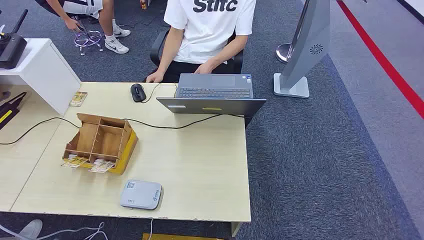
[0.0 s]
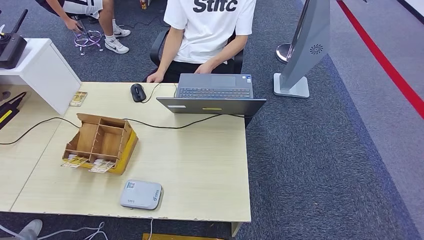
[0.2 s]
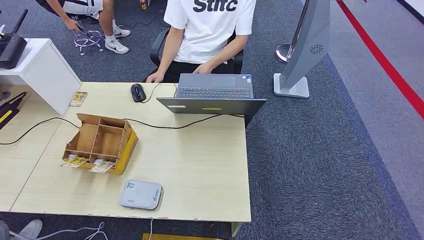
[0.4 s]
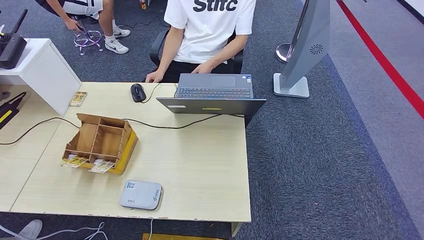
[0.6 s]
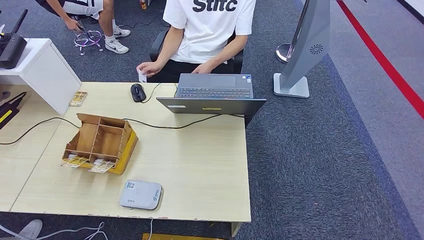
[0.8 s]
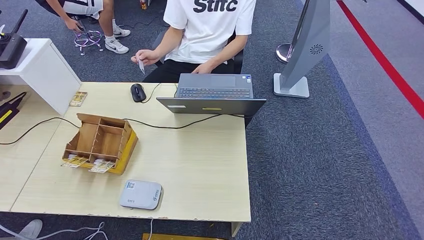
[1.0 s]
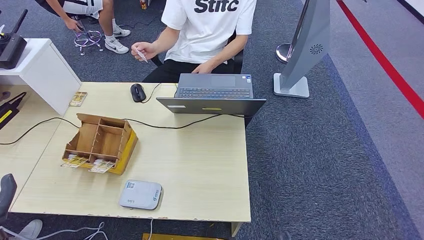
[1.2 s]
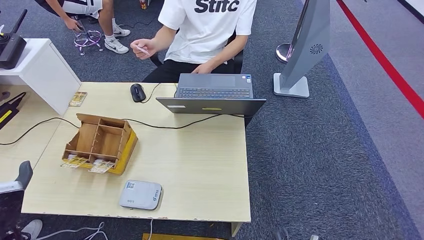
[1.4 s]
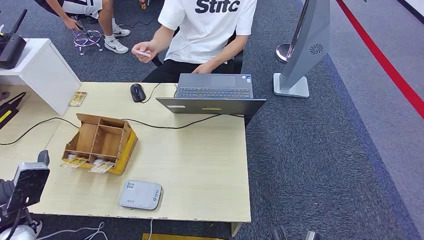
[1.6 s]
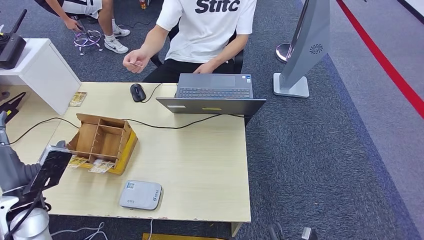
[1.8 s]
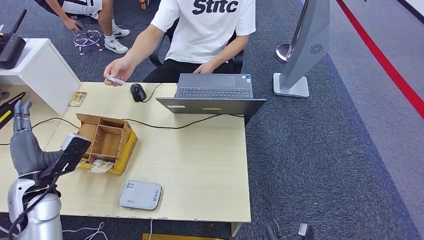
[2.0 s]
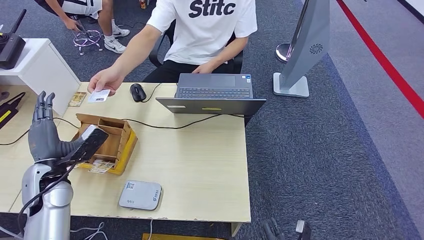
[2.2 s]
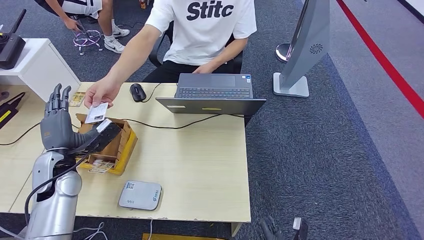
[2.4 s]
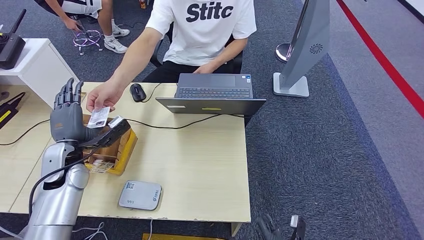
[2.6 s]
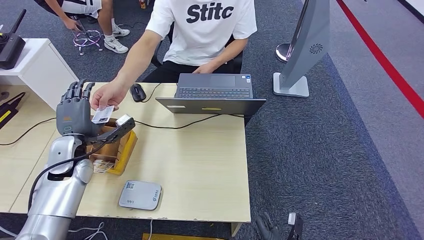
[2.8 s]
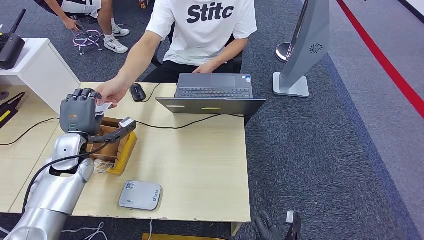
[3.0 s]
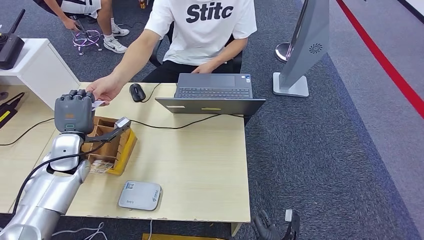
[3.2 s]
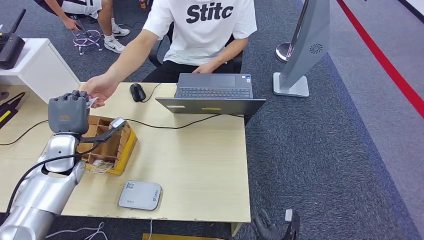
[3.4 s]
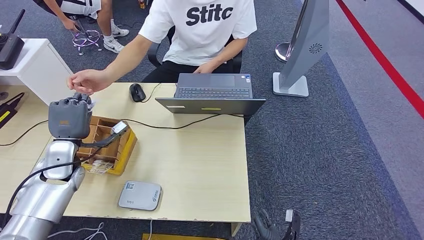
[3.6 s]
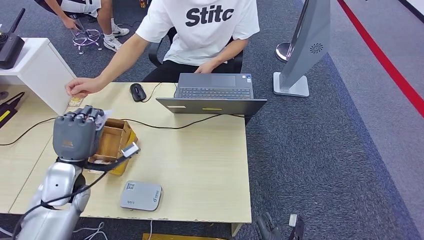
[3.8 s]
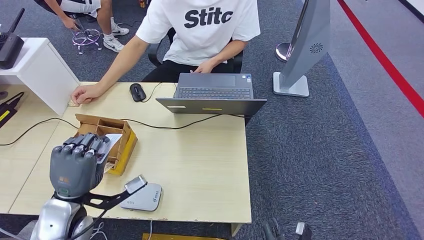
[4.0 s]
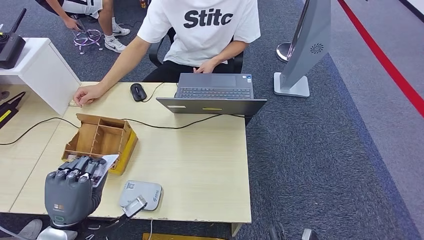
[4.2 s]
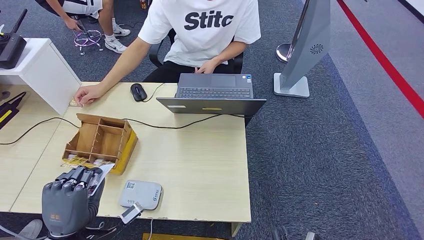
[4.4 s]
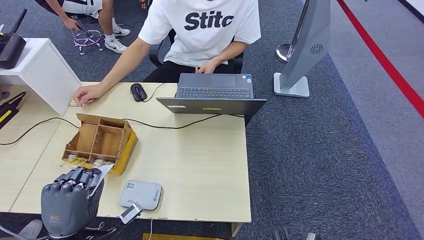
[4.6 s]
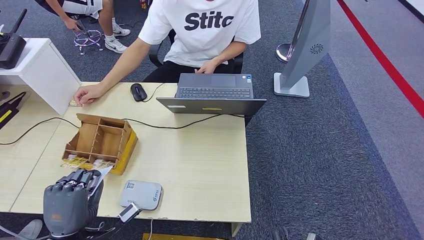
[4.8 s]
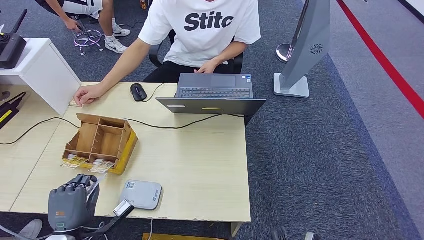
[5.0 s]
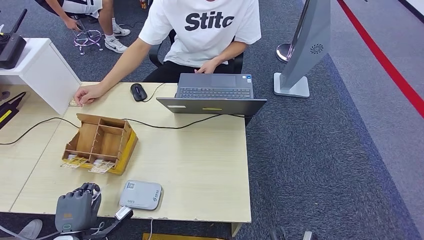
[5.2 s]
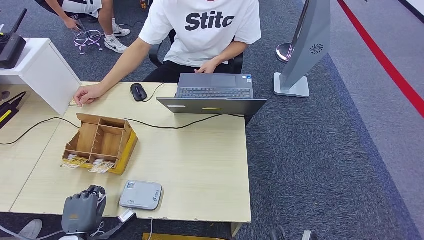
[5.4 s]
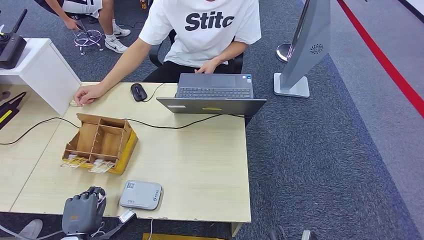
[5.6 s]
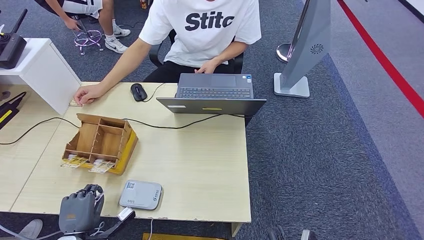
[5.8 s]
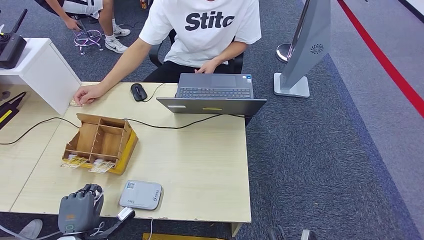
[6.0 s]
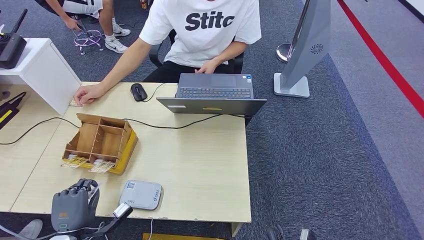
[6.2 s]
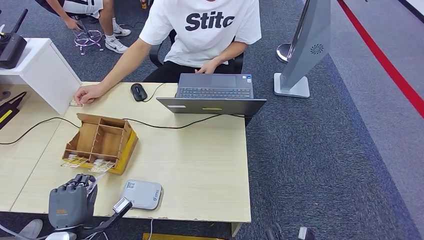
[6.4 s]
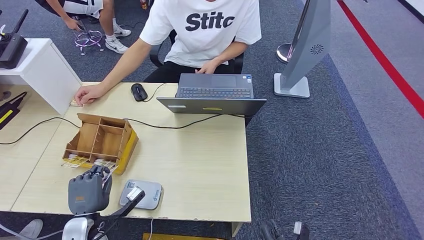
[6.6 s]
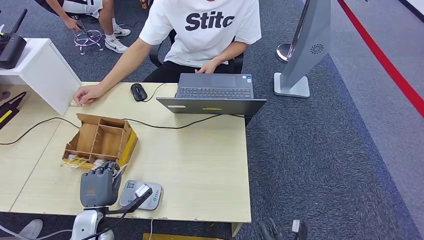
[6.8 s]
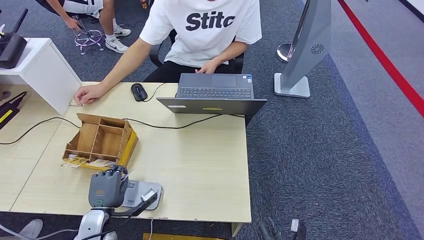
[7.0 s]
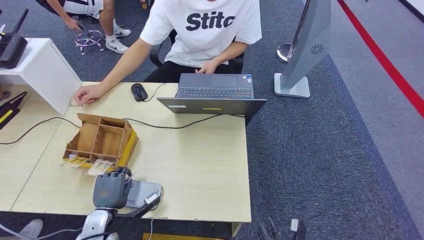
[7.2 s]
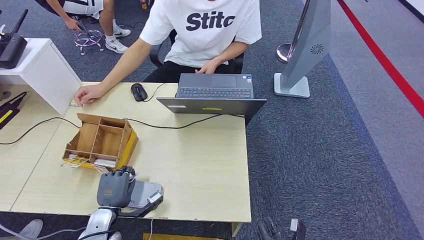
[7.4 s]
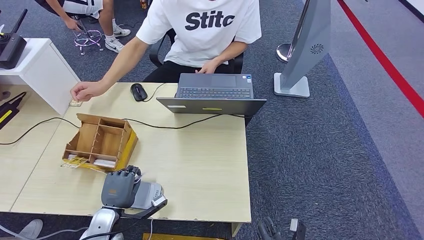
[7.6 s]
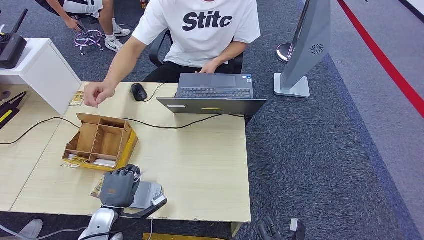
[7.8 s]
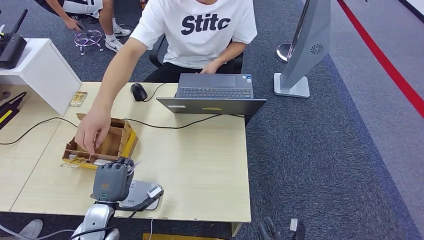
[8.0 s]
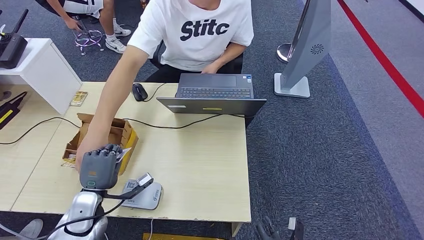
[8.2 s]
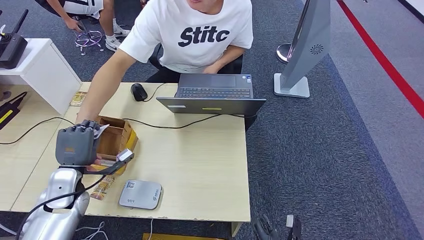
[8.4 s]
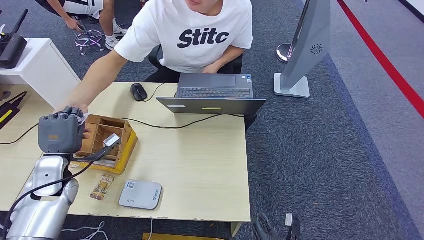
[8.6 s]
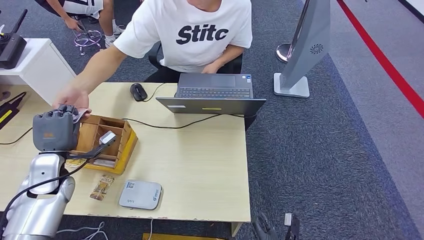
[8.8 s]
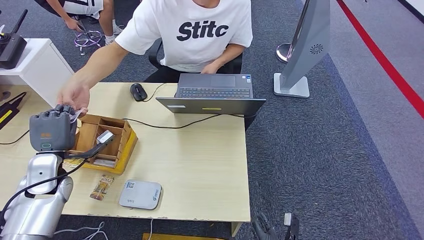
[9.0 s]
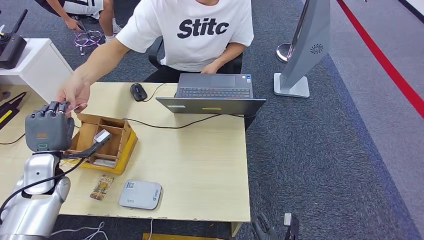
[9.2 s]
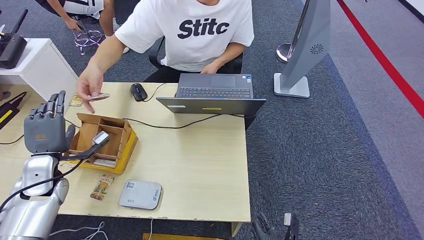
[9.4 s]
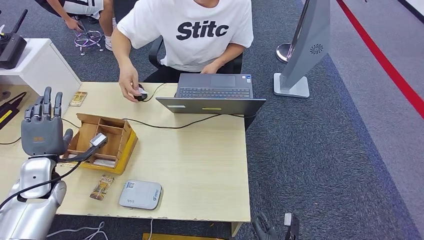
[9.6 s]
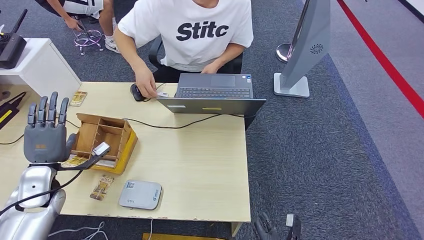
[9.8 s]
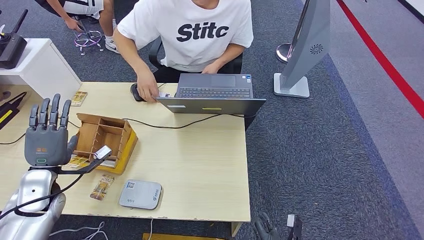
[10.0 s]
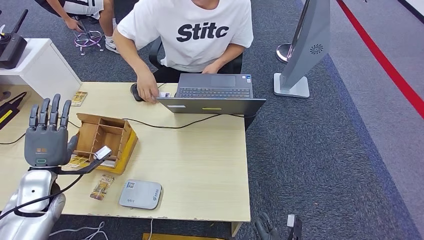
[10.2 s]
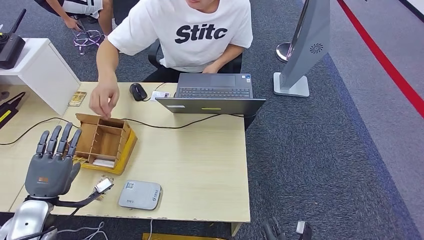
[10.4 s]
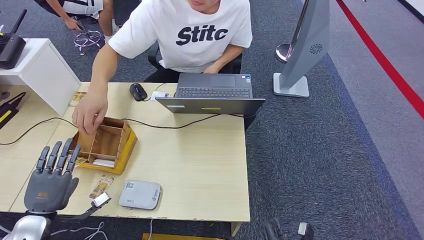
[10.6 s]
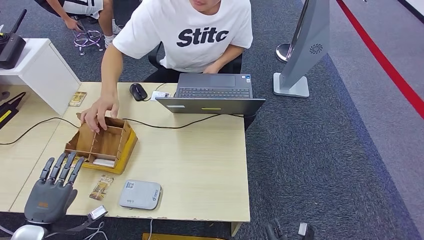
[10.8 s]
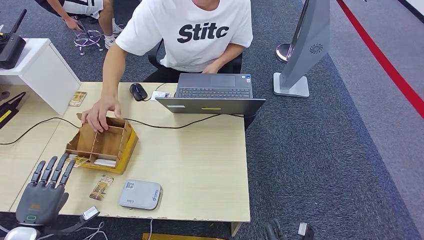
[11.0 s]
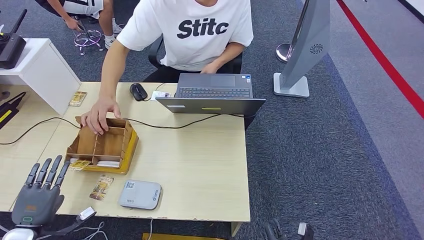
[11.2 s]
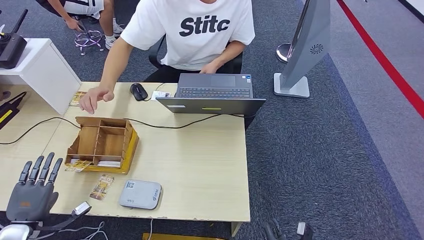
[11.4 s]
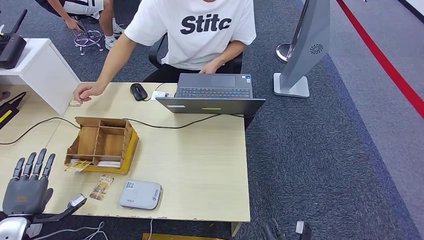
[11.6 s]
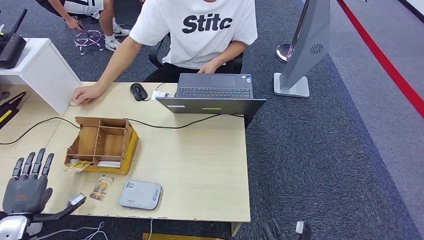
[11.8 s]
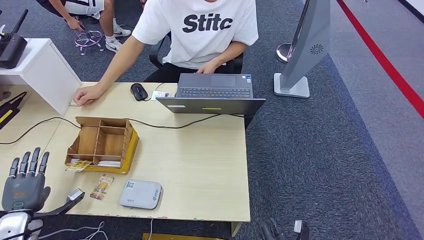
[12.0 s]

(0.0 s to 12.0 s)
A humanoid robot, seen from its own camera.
Step, 0.0 s - 4.8 s: Take the ID card from the person's hand.
Step, 5.2 s - 7.4 s: Place the ID card on the card reader.
Step, 7.6 s - 11.0 s: Hand the ID card to the person.
1.6 s - 3.0 s: The left hand travels forward by approximately 15 cm.
3.0 s - 4.4 s: The left hand heads backward, covering about 20 cm.
4.4 s - 6.0 s: The left hand is displaced downward and to the left by approximately 15 cm.
6.0 s - 7.6 s: The left hand moves to the right and forward, approximately 10 cm.
7.6 s - 9.0 s: The left hand shifts roughly 20 cm upward, to the left and forward.
9.0 s - 10.4 s: The left hand shifts roughly 5 cm backward.
10.4 s - 12.0 s: The left hand goes approximately 15 cm to the left, downward and backward.

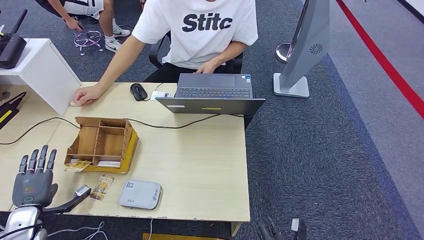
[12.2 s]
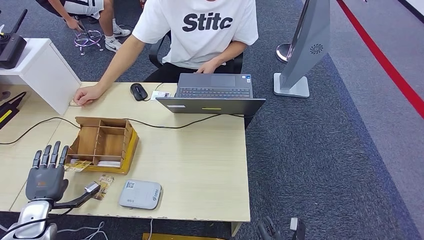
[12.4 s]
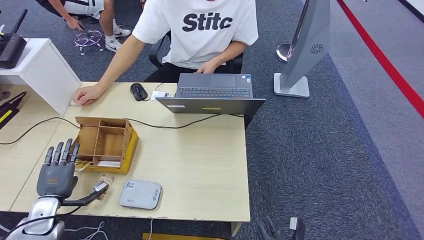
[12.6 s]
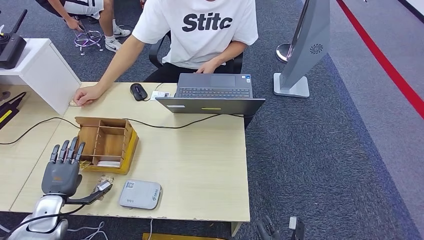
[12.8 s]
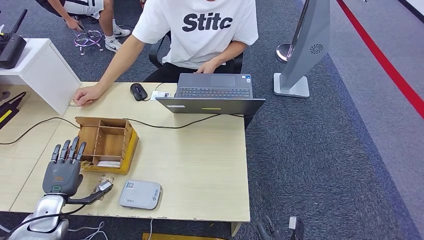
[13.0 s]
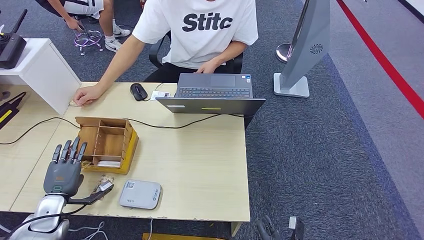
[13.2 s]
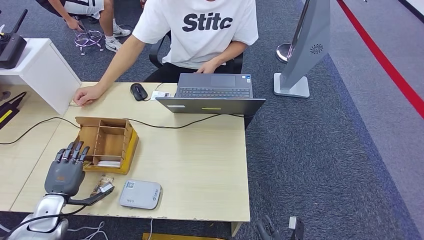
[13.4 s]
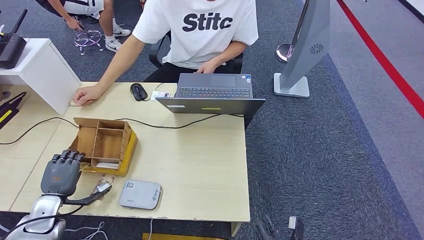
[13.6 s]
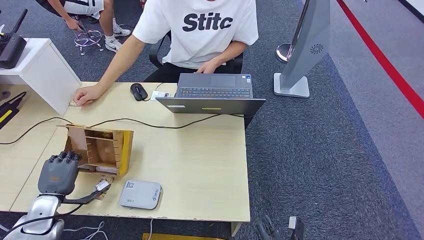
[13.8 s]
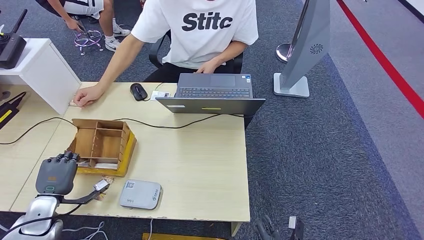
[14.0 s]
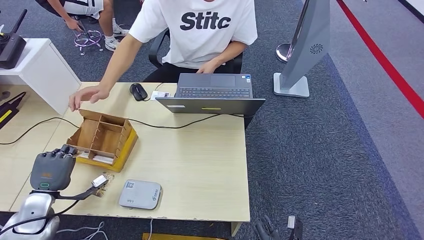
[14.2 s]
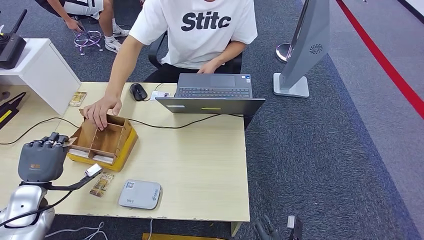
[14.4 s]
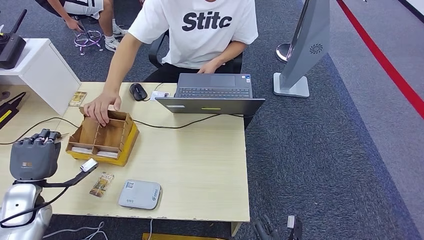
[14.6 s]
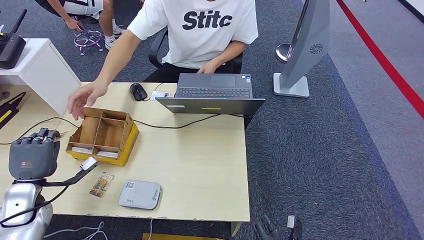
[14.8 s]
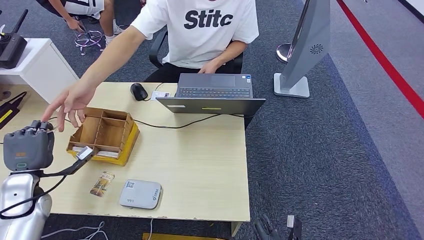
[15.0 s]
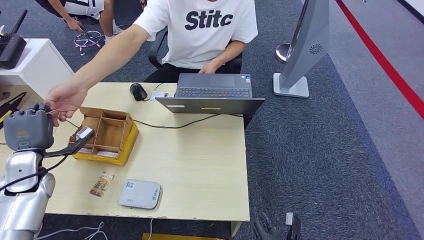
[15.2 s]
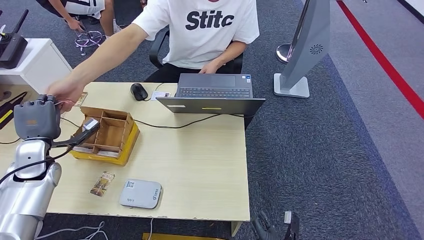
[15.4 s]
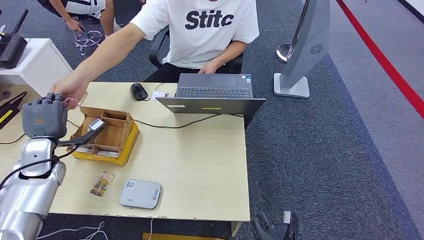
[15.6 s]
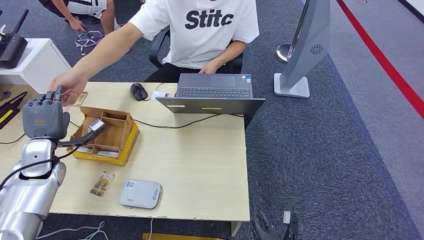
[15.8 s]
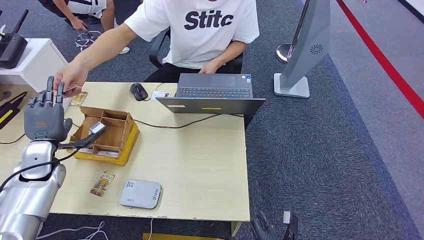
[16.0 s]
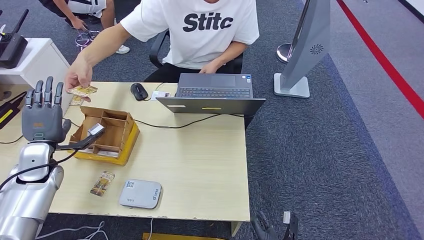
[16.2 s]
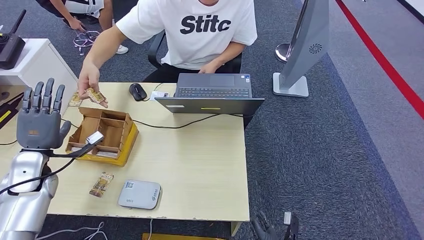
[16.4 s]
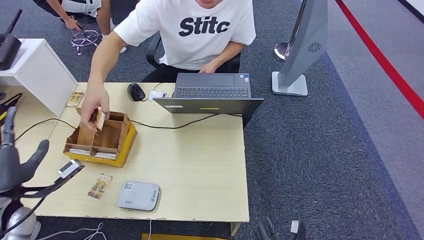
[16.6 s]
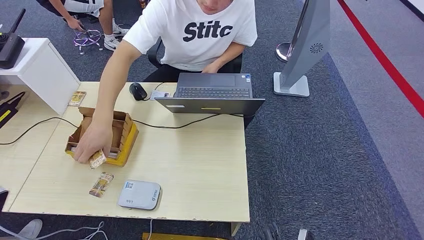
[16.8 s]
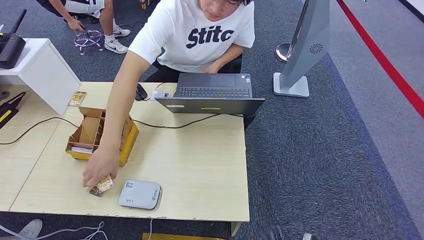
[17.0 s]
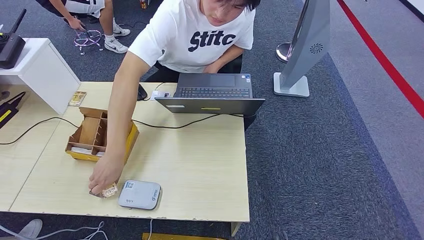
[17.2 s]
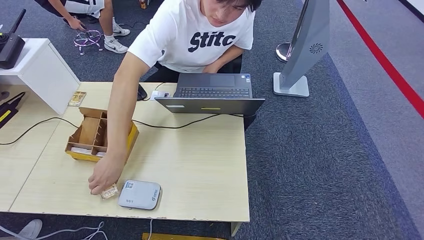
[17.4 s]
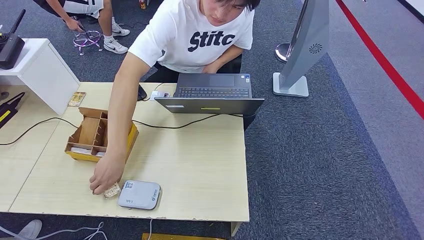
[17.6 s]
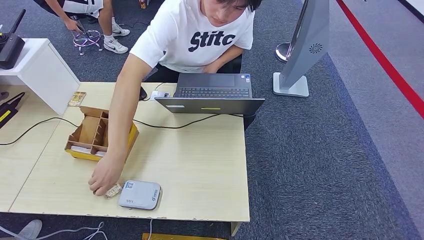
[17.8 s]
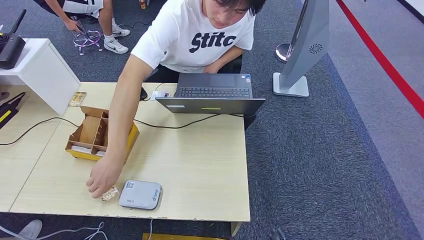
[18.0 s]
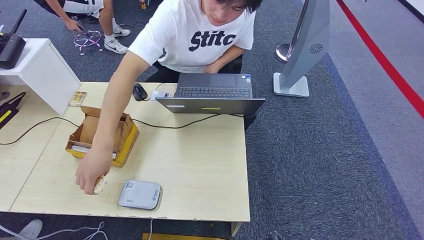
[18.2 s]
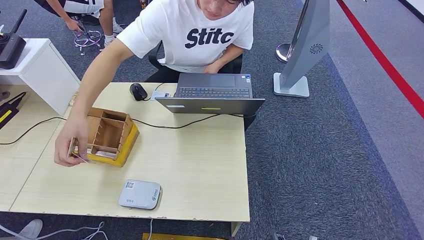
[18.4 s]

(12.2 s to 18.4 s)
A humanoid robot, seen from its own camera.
Step, 12.2 s - 14.4 s: Pick up the room key from the key card box.
Step, 14.6 s - 18.4 s: Hand the room key to the person.
12.2 s - 13.8 s: The left hand shifts by roughly 5 cm.
13.8 s - 15.4 s: The left hand is displaced upward and forward by some 15 cm.
15.4 s - 16.8 s: The left hand heads backward, covering some 20 cm.
16.8 s - 18.4 s: The left hand is displaced downward, backward and to the right by about 35 cm.
